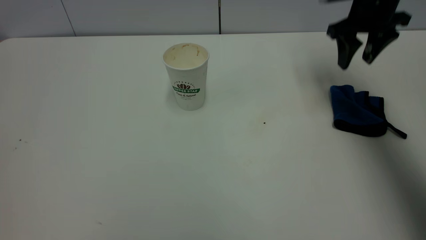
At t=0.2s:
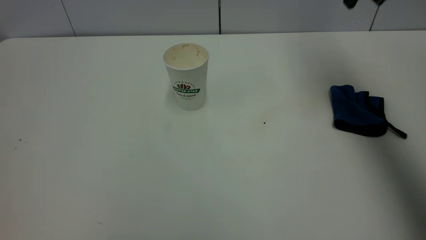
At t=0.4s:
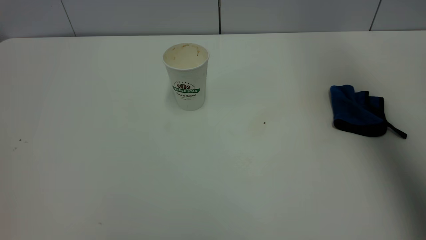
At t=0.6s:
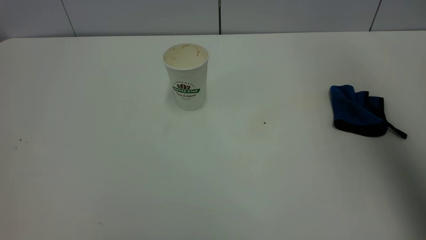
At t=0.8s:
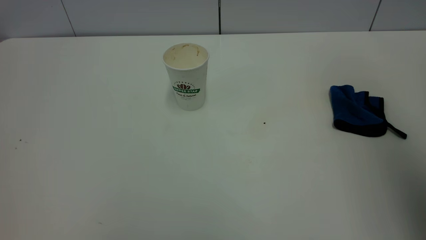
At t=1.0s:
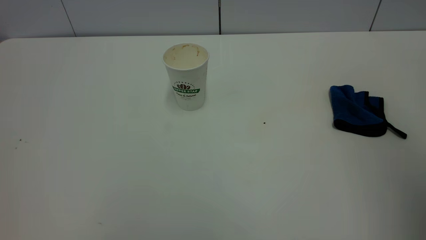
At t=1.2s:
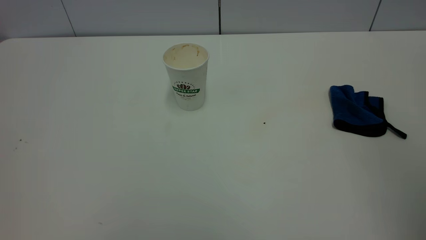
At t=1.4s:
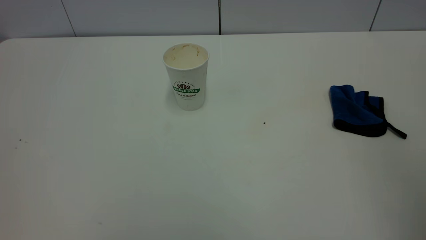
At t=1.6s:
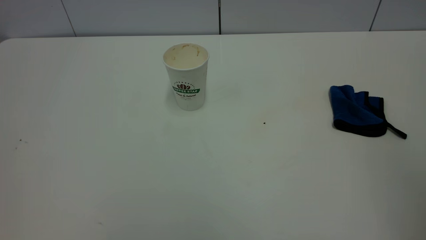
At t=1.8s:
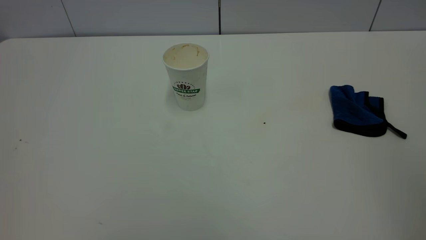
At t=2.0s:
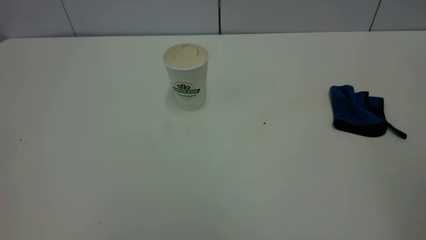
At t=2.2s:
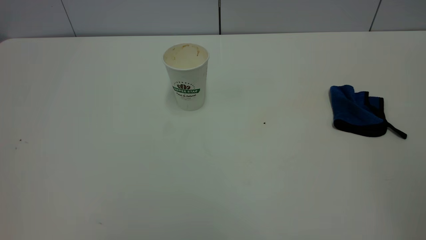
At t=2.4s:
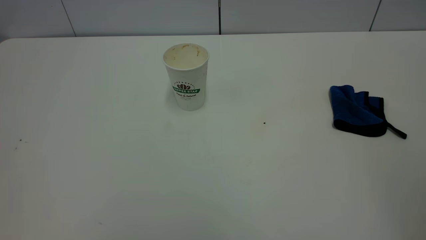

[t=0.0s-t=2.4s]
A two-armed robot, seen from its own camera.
Task of the whole recording: the left gripper pick up the fallen cup and place it upright, the right gripper grasp the blue rag and wipe the tea stain on the table, the right gripper put the blue rag back in its original position.
t=0.0s to t=1.2s: The right gripper goes approximately 40 cm backward.
